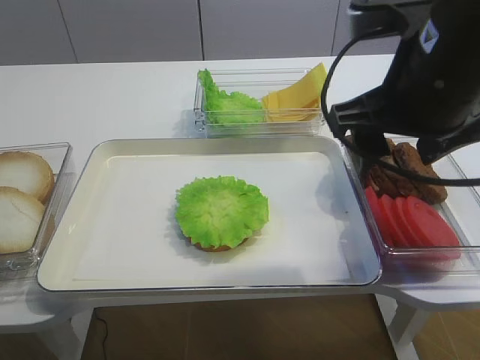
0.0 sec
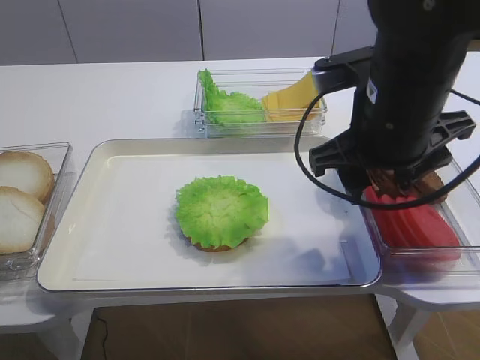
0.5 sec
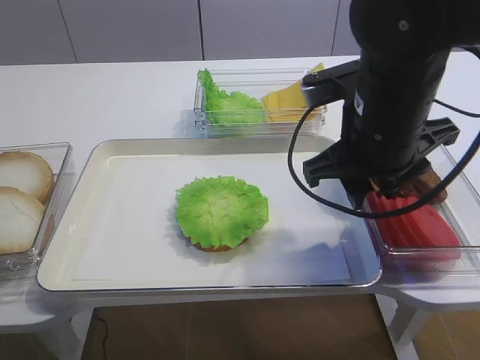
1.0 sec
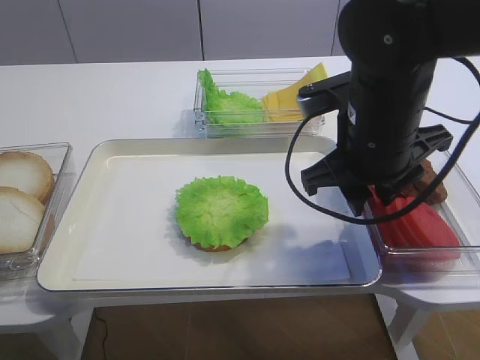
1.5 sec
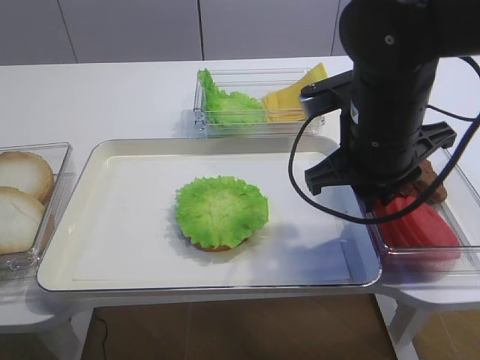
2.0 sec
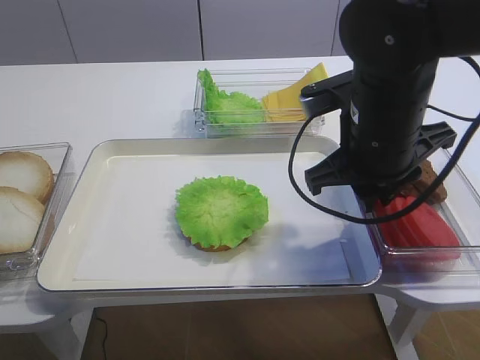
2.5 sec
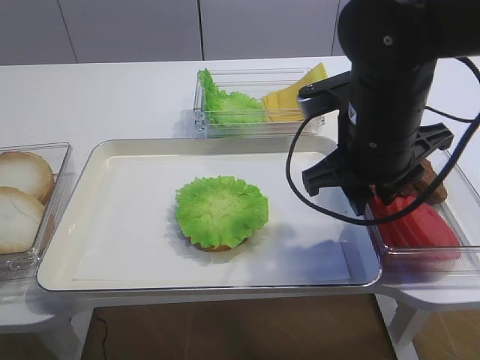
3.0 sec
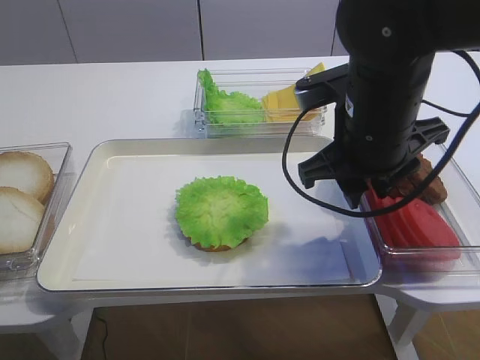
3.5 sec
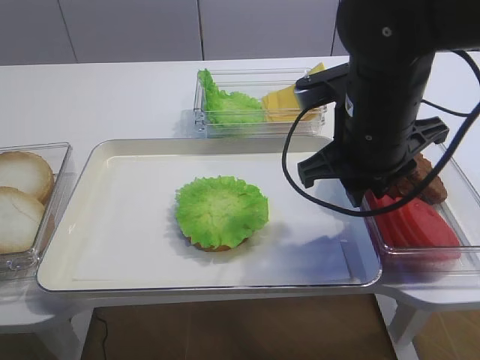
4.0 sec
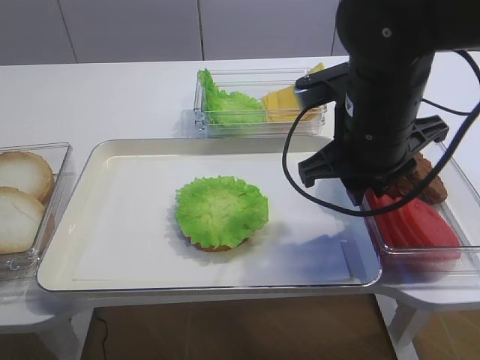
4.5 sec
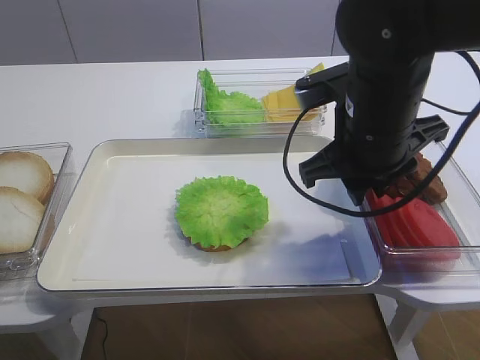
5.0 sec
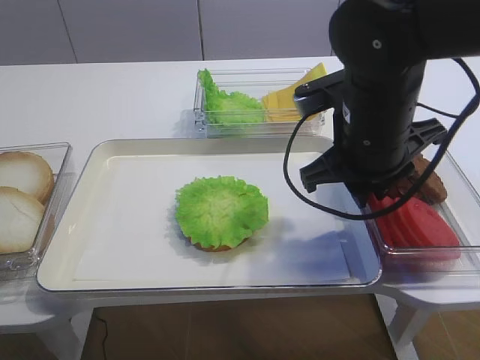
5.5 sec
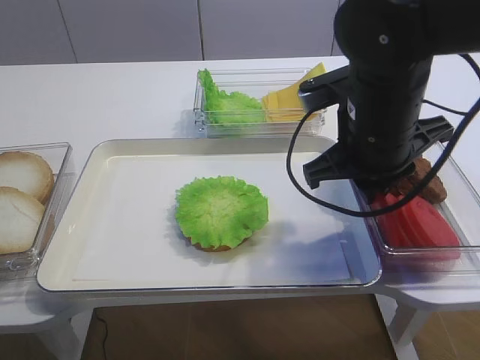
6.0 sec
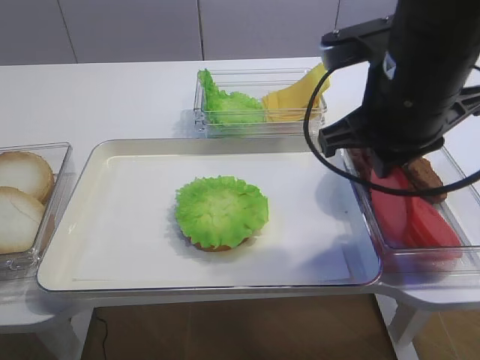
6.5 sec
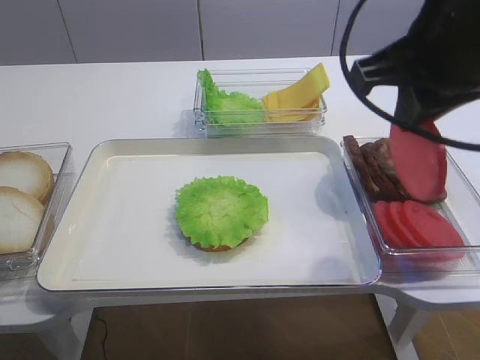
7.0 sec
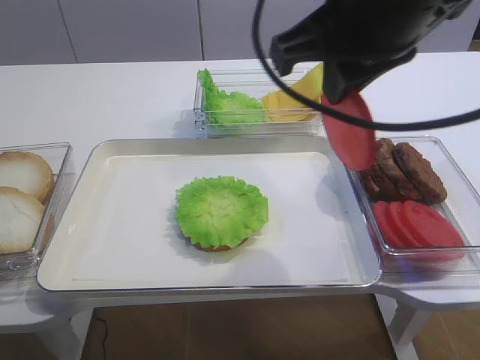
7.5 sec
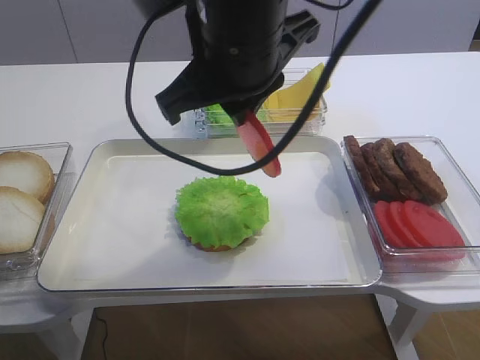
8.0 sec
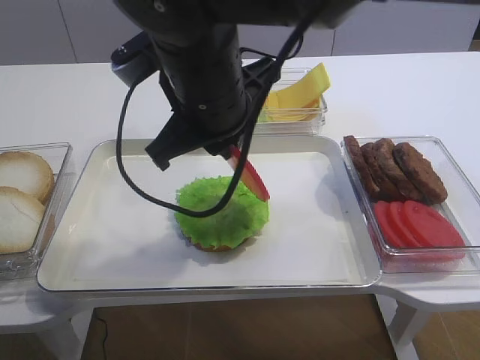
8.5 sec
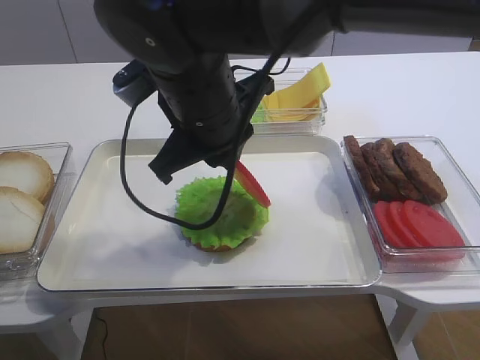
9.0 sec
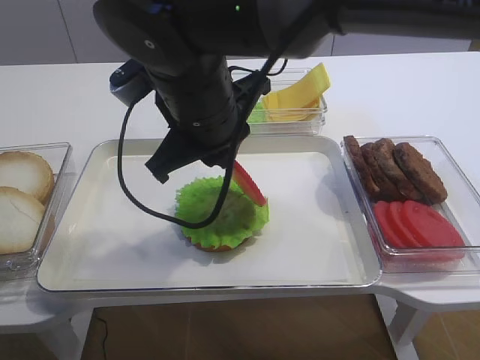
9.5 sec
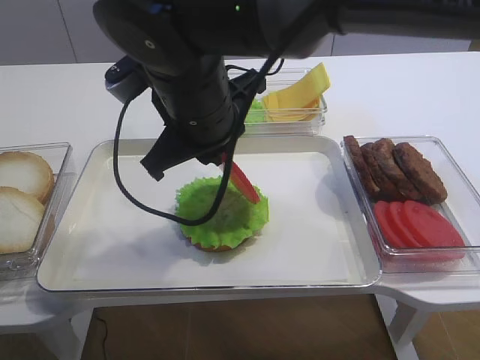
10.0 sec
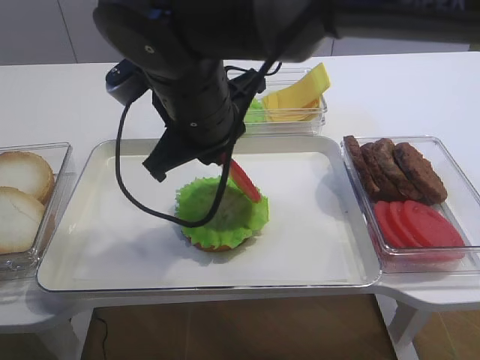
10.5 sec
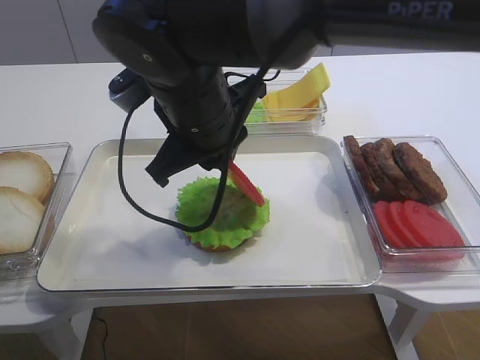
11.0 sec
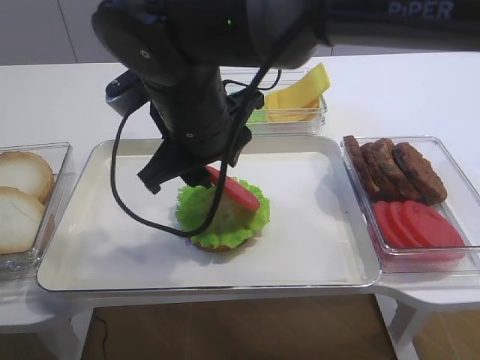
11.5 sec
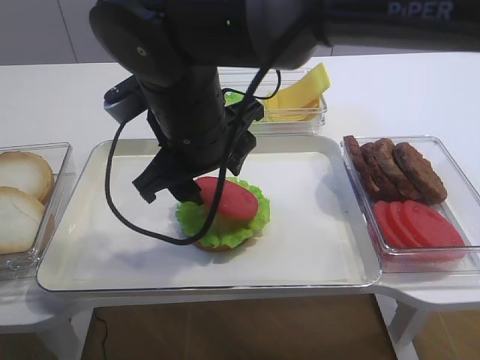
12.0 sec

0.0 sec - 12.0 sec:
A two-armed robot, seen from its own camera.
Step, 0.0 sec - 7.0 sec: Pick up the tomato slice with the right gripper.
0.0 sec - 2.0 sec: The right gripper heads downward, covering approximately 5 cm, and closes up.
2.0 sec - 6.0 sec: Both grippers stay put.
6.0 sec - 8.0 sec: The right gripper heads to the left and upward, covering approximately 15 cm.
8.0 sec - 10.0 sec: The right gripper shifts roughly 5 cm downward.
10.0 sec - 12.0 sec: The right gripper opens.

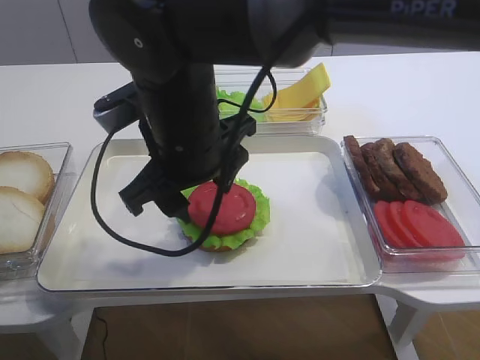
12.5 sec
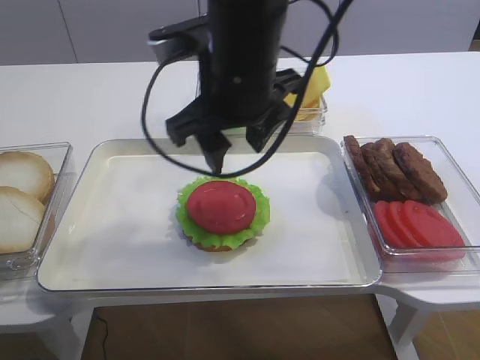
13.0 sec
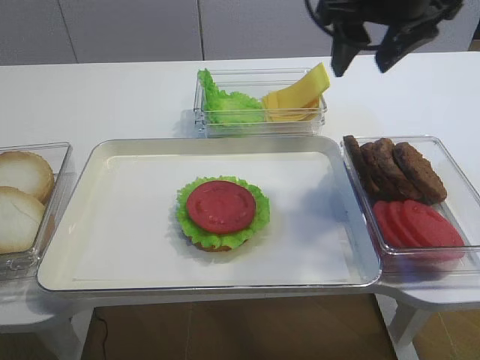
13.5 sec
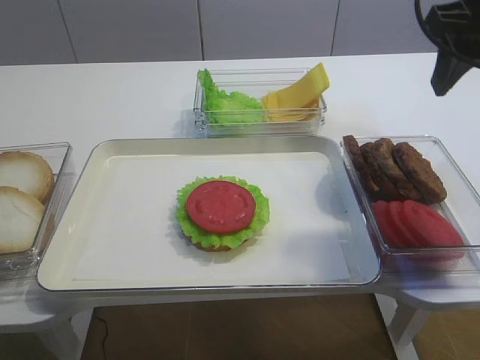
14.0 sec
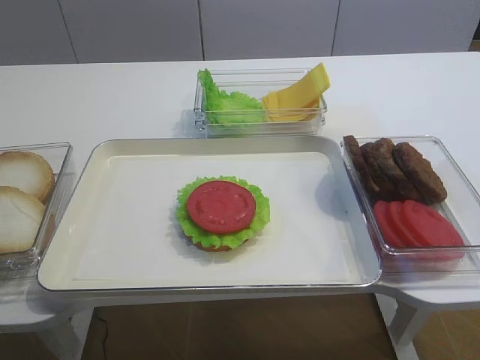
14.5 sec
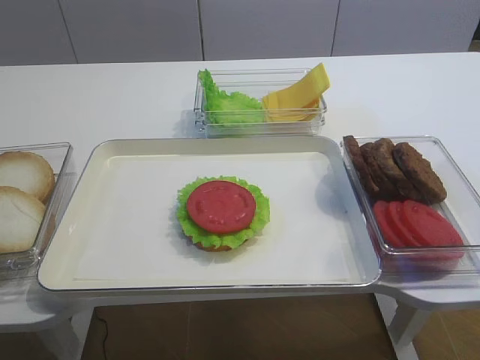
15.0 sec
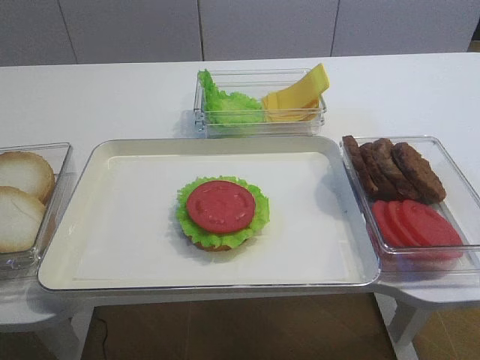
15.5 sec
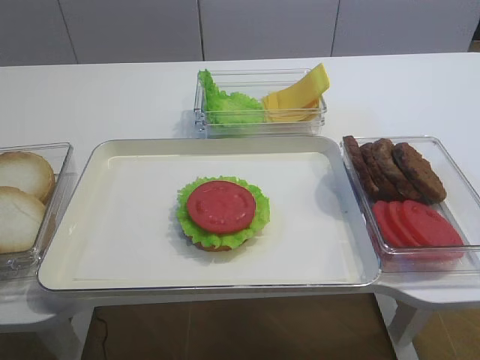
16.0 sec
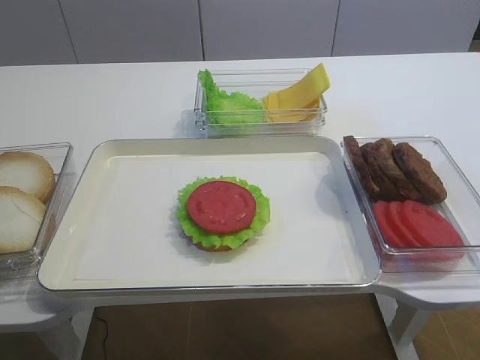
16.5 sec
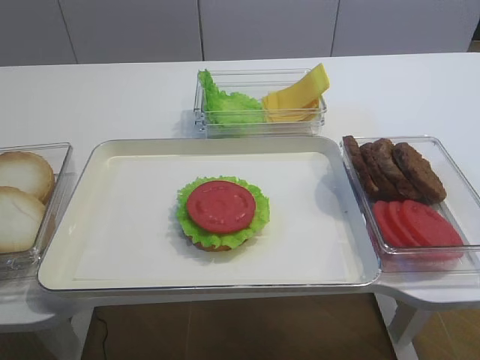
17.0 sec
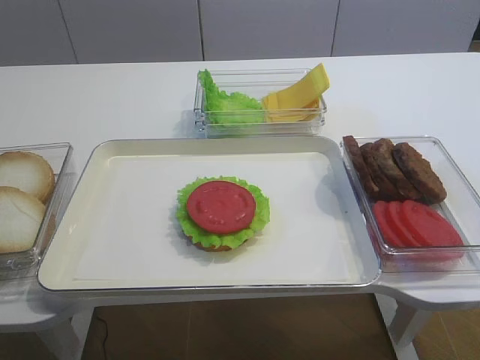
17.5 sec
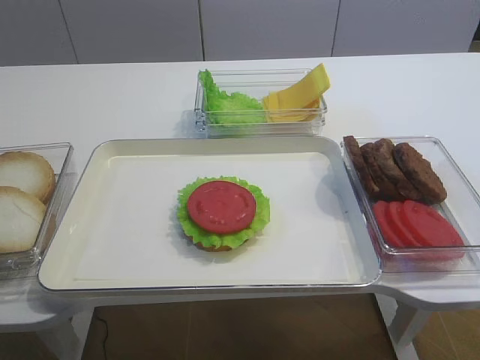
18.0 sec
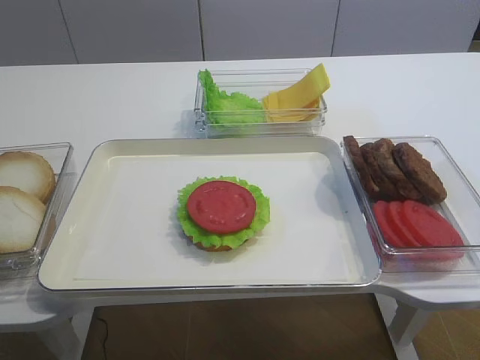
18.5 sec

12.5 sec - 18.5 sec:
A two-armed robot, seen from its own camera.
12.5 sec - 14.5 sec: The right gripper moves to the right, approximately 30 cm.

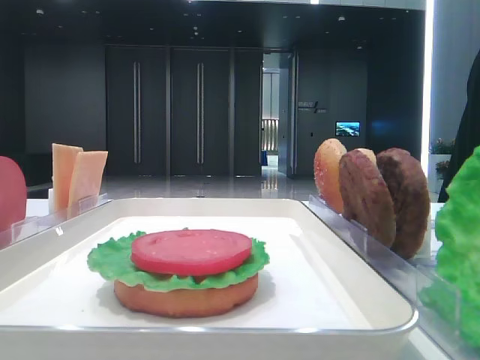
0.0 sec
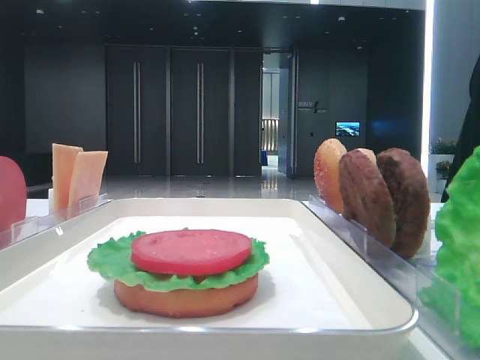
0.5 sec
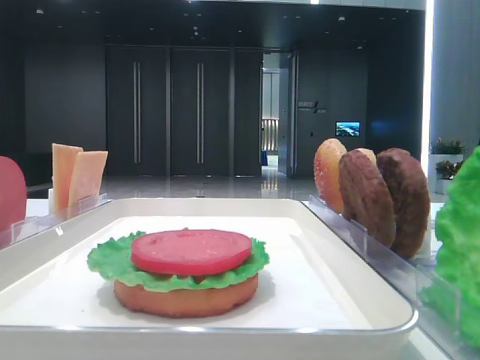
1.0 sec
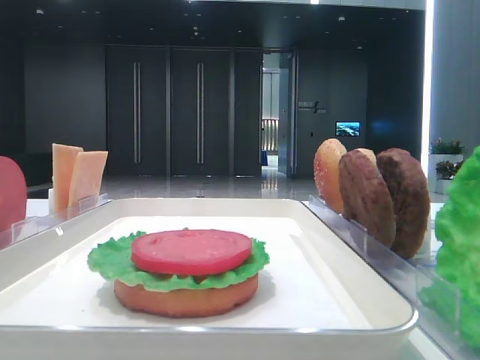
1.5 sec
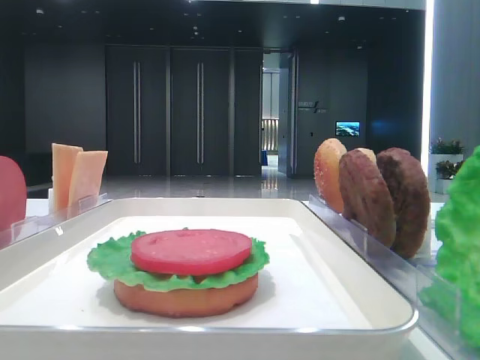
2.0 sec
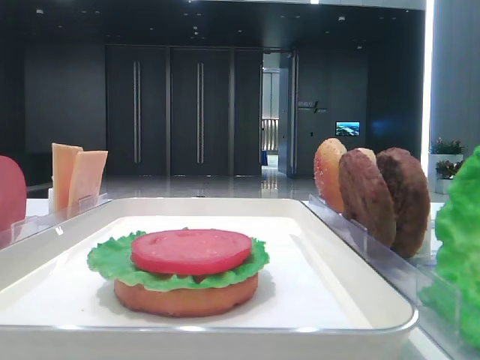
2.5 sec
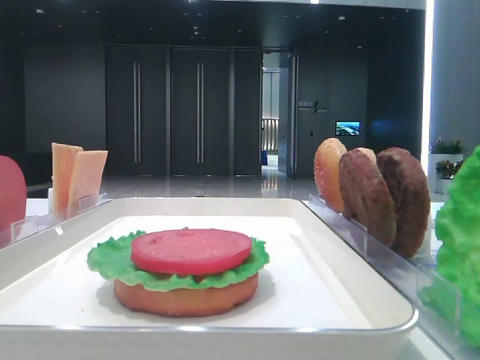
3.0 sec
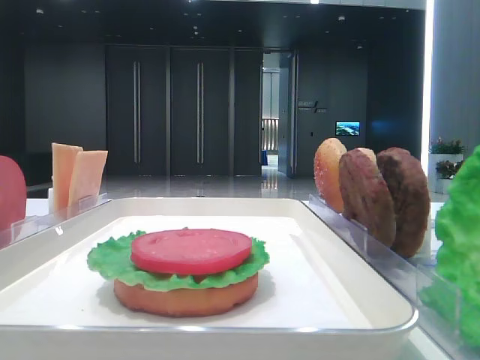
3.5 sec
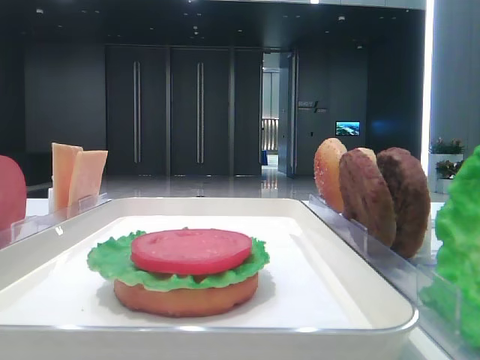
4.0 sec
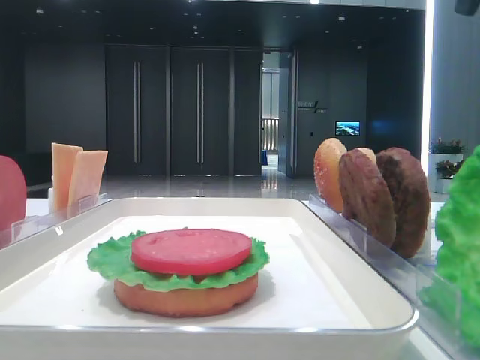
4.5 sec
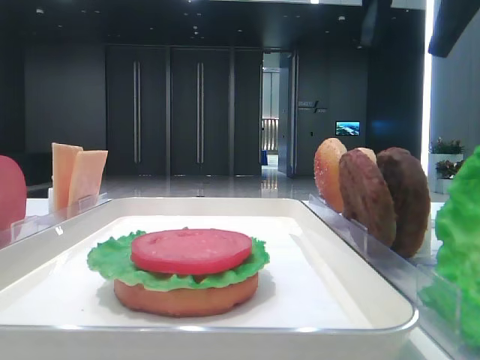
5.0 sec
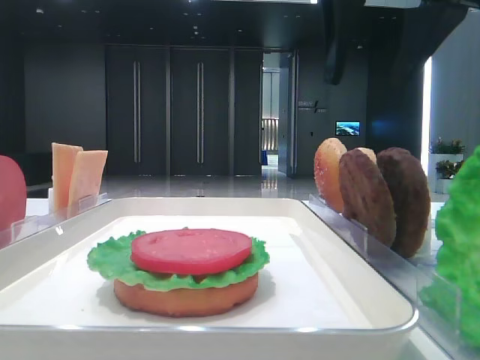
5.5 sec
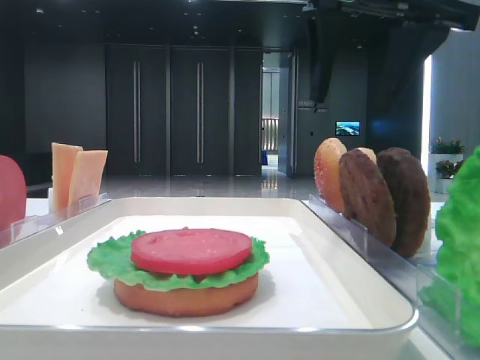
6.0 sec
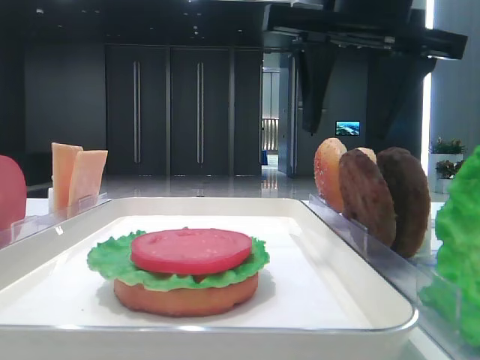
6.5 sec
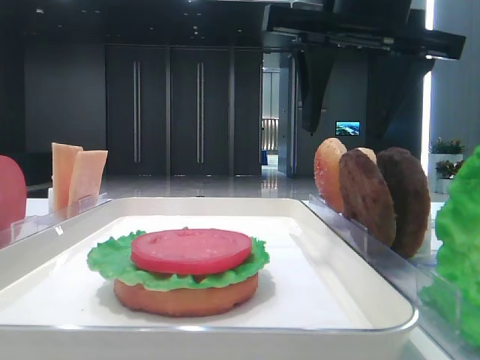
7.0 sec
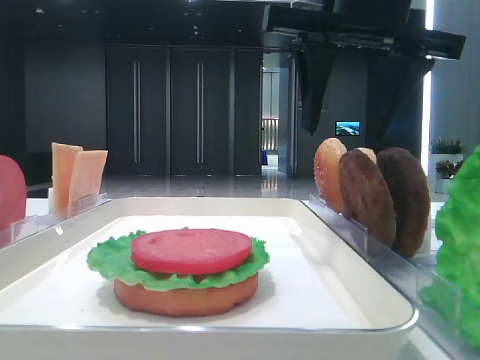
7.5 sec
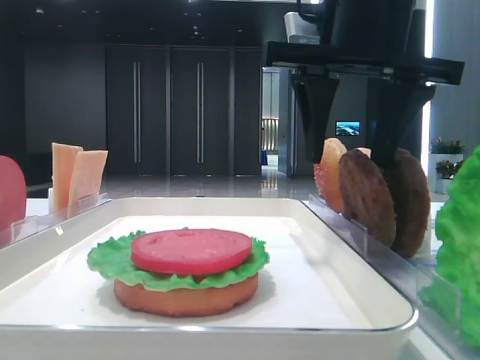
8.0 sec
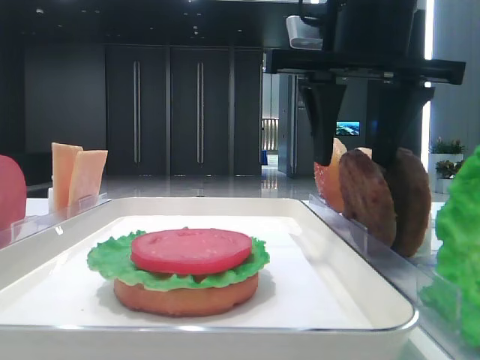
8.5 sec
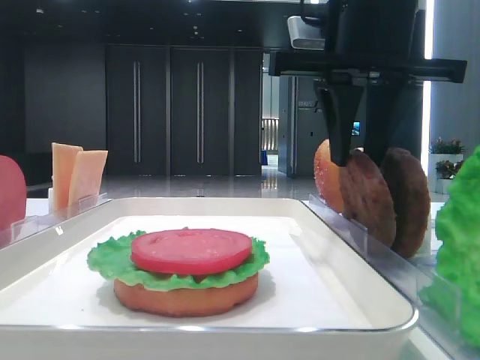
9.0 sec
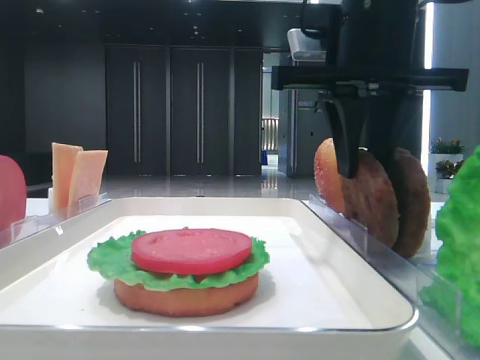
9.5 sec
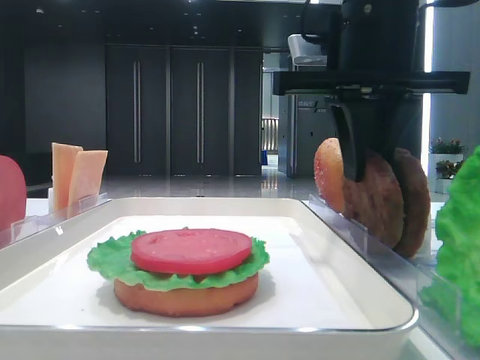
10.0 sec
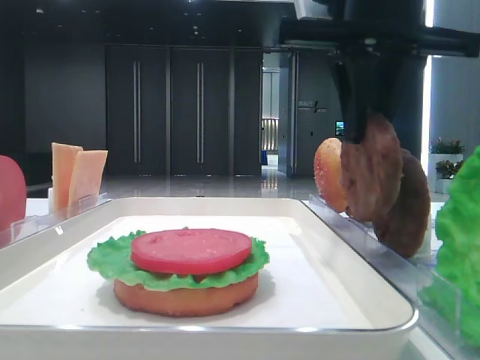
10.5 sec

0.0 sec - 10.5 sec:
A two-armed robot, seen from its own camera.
Step, 0.0 sec - 9.5 sec: Grab the patty with the right hand.
4.0 sec - 6.5 sec: The right gripper shifts about 20 cm to the left and downward.
6.5 sec - 8.5 sec: The grippers move only a little.
8.5 sec - 10.5 sec: The right gripper closes up.
